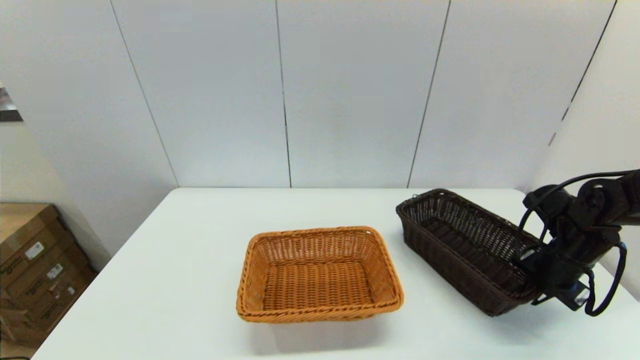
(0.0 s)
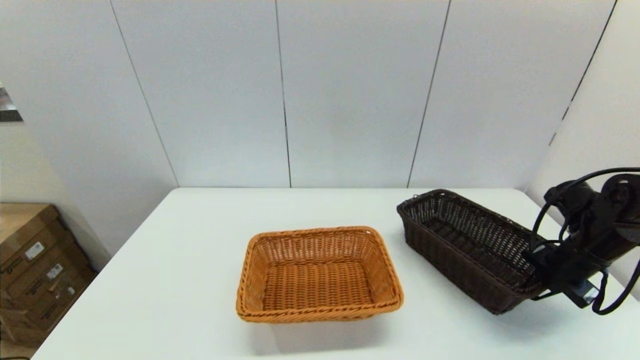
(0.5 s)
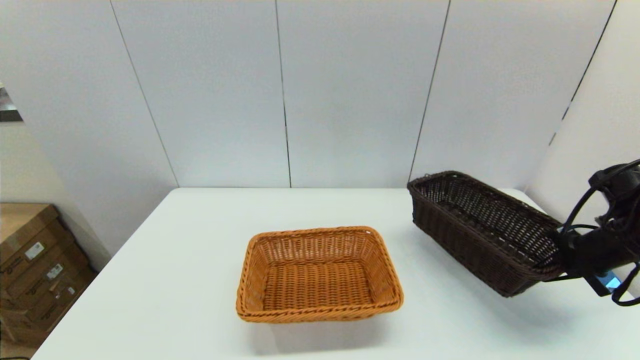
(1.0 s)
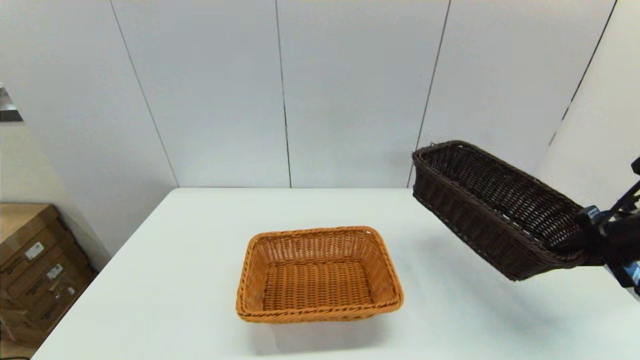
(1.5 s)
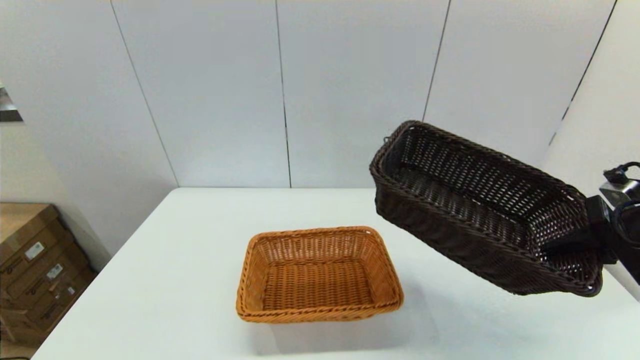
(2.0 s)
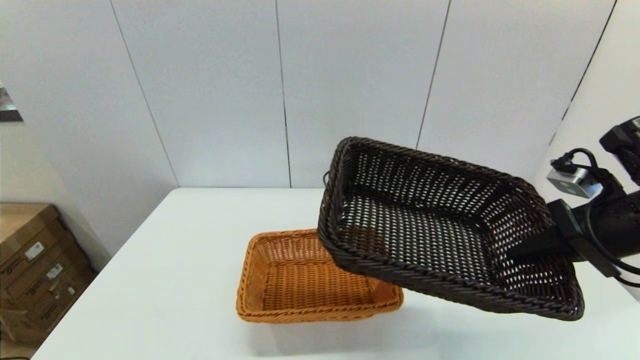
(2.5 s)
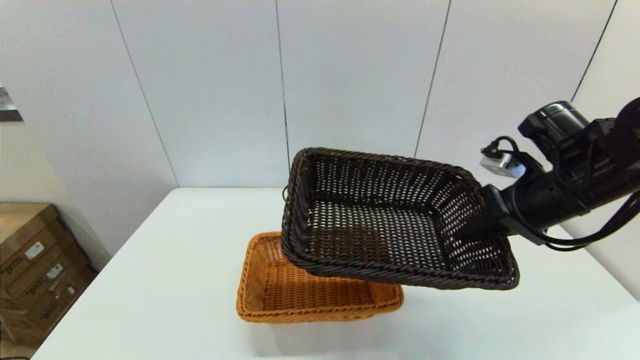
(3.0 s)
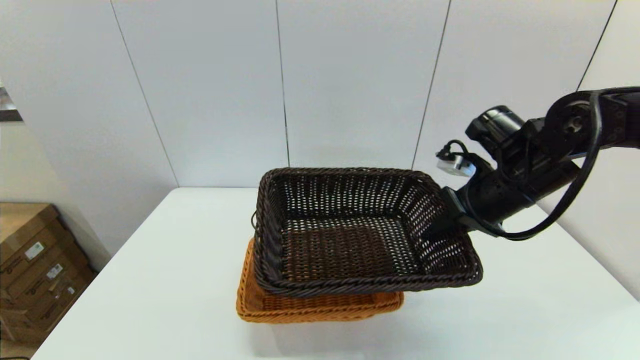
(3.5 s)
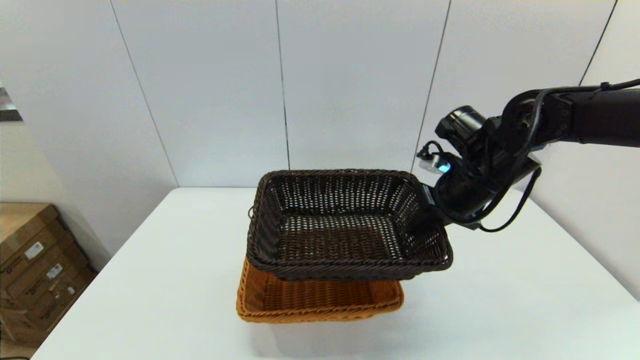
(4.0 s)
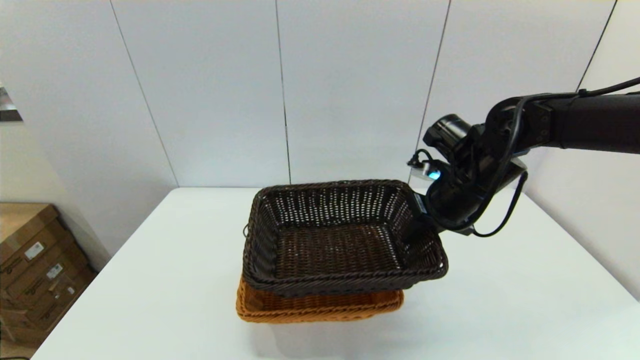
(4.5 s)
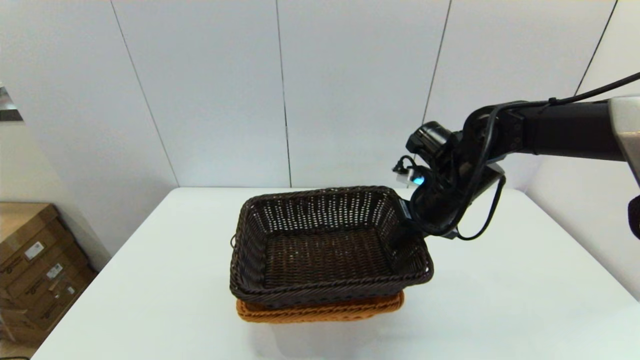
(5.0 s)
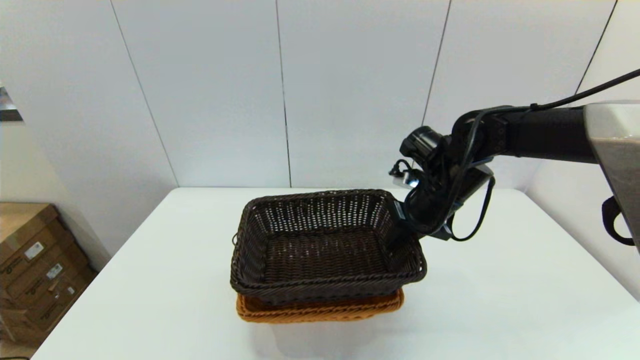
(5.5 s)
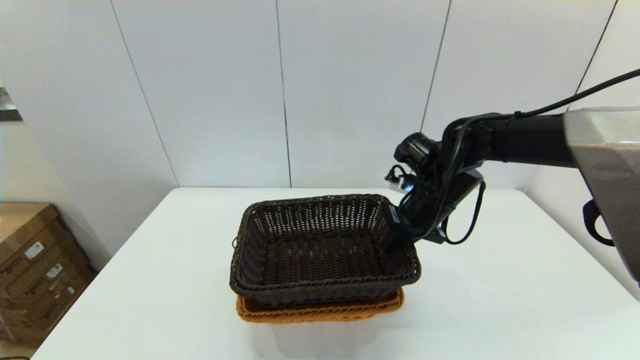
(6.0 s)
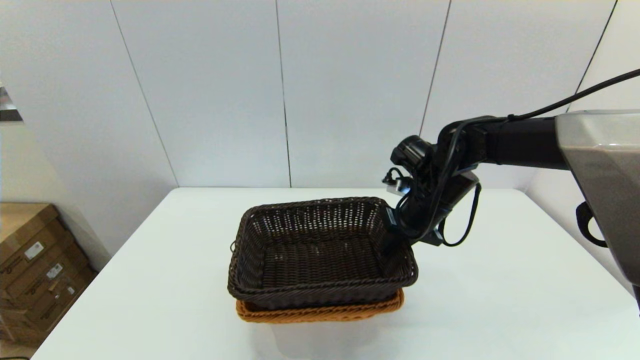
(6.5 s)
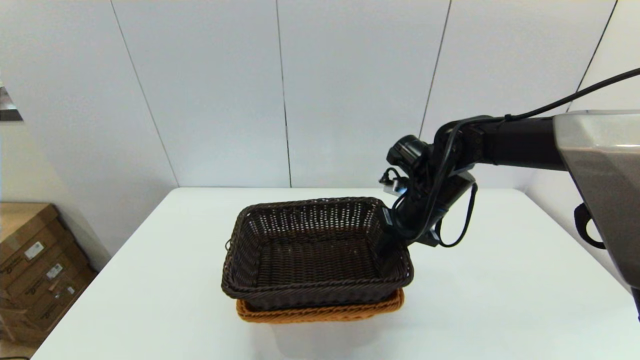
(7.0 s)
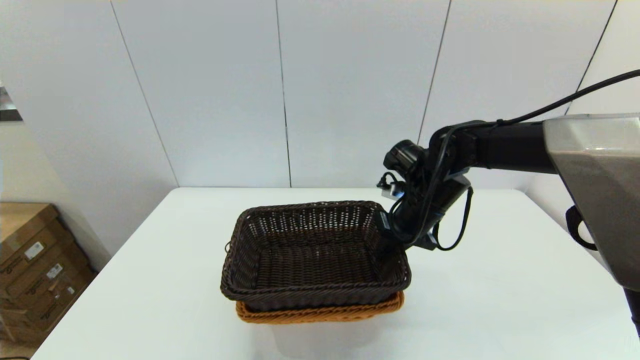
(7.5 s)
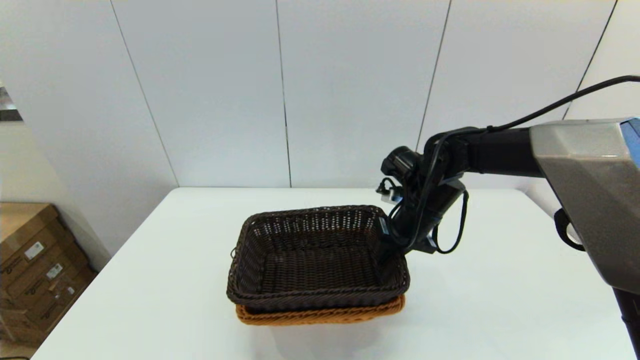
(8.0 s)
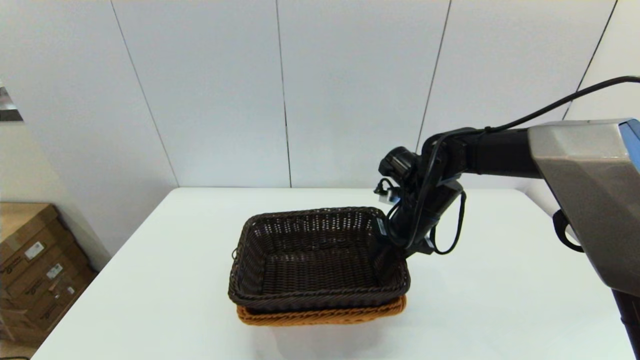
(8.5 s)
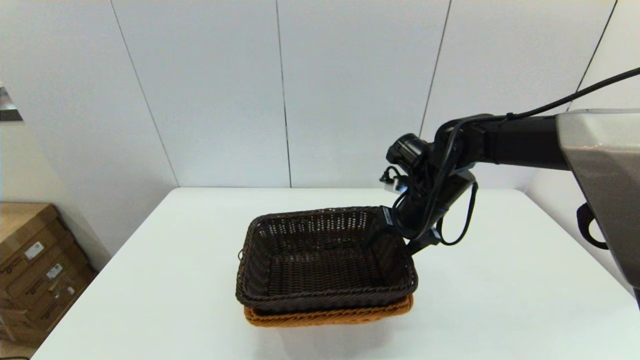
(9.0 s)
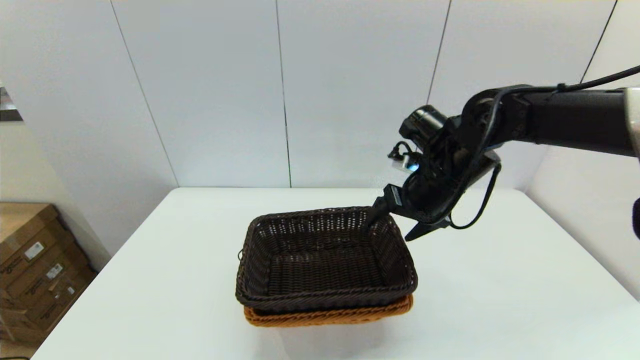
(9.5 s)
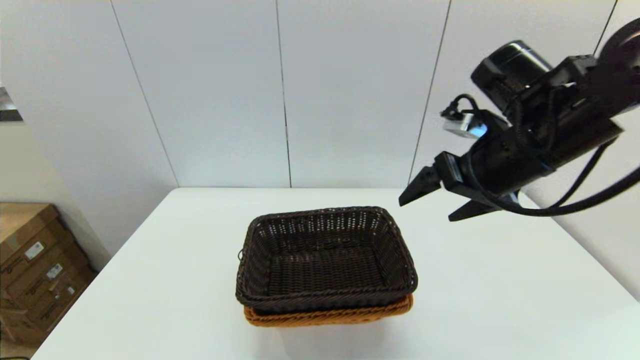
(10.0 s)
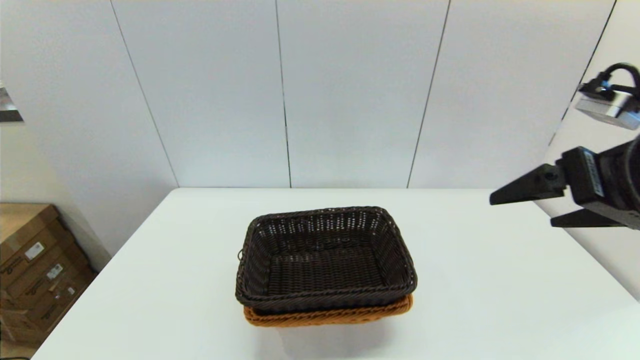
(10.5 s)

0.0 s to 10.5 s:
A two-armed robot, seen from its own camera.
Task of the whole recording: stack a basket on top of another basket.
Step, 0.5 to 9.0 s: Place the dark basket into the light color basket with the right gripper.
0.0 to 2.0 s: The right gripper goes about 15 cm upward and backward.
2.0 to 4.0 s: The right gripper is displaced to the left and forward by some 20 cm.
4.0 to 6.5 s: The right gripper shifts by some 5 cm.
6.5 to 8.5 s: The right gripper opens up.
8.5 to 10.5 s: The right gripper moves backward, upward and to the right, roughly 30 cm, and opens its fingers.

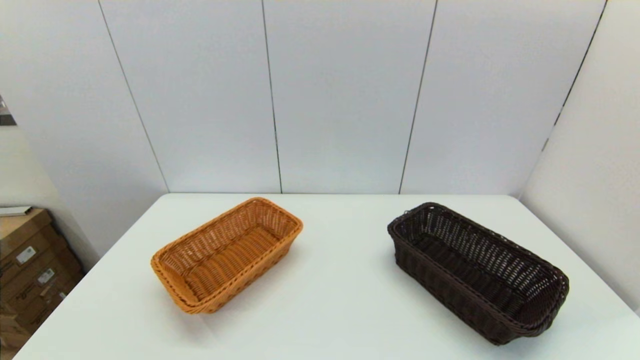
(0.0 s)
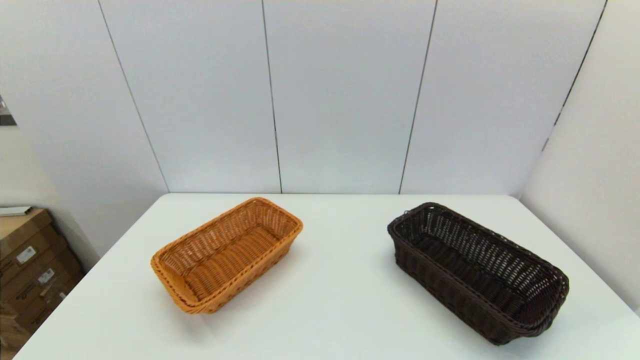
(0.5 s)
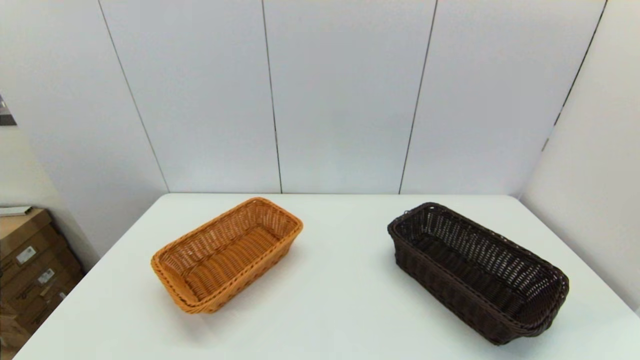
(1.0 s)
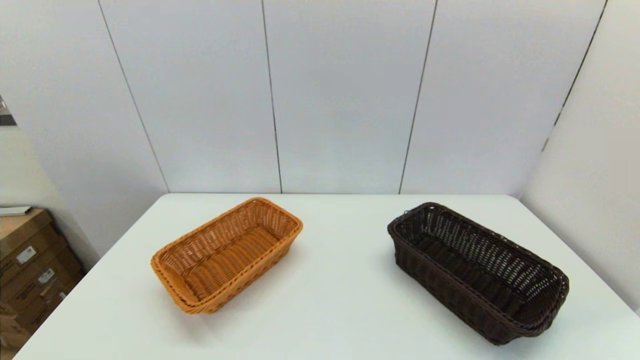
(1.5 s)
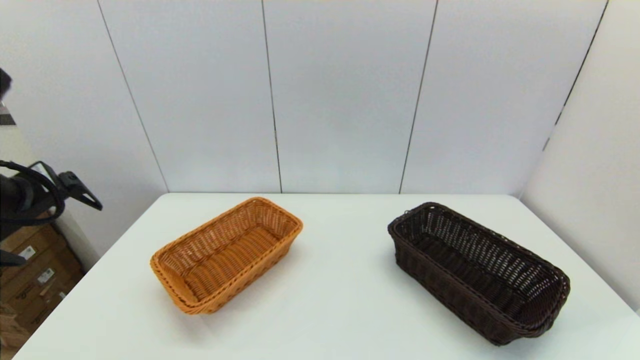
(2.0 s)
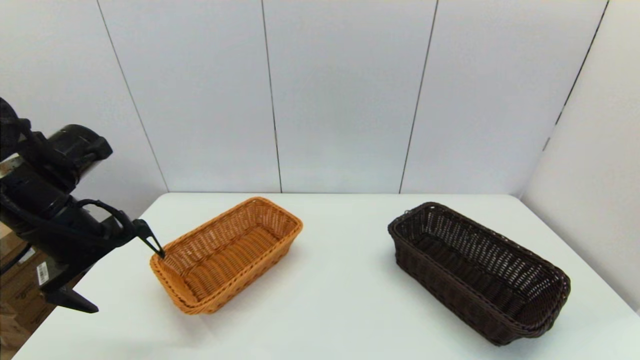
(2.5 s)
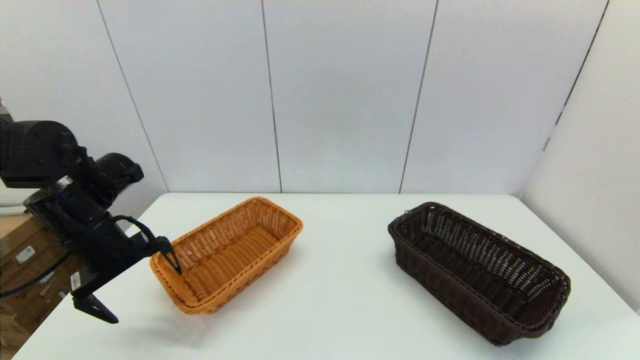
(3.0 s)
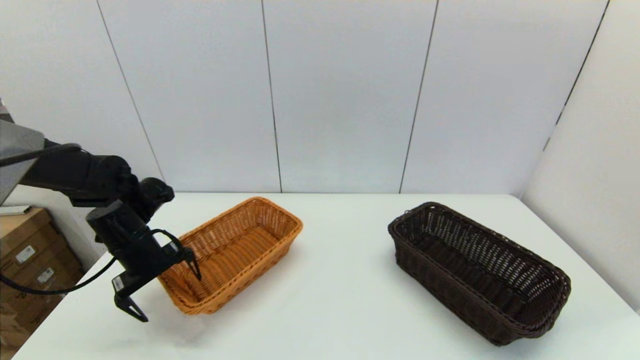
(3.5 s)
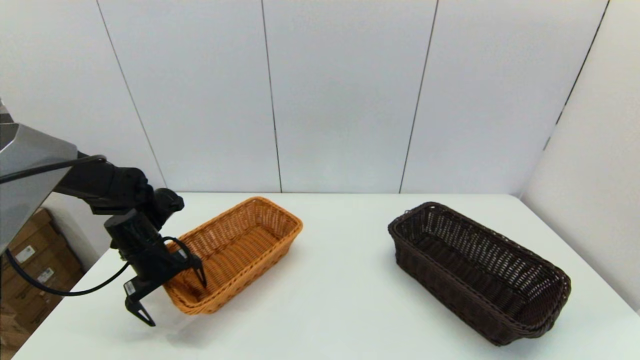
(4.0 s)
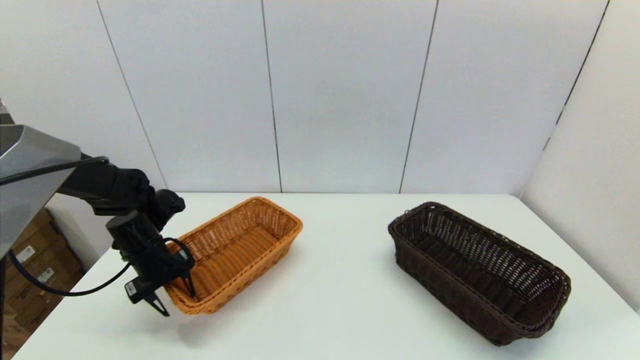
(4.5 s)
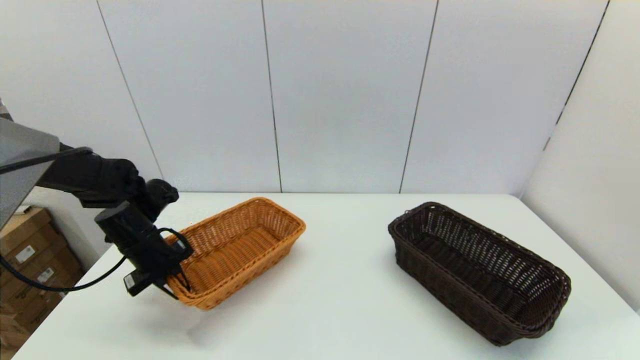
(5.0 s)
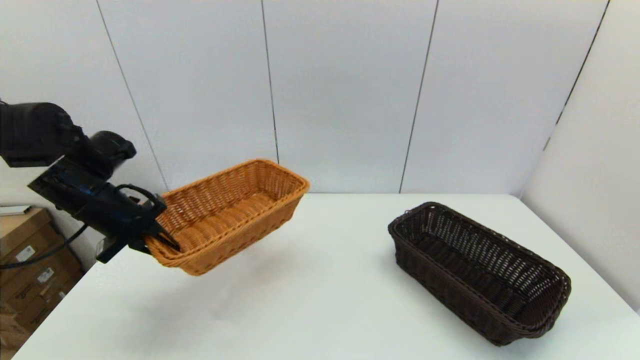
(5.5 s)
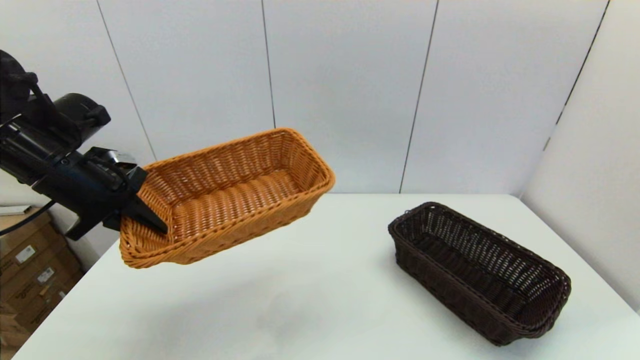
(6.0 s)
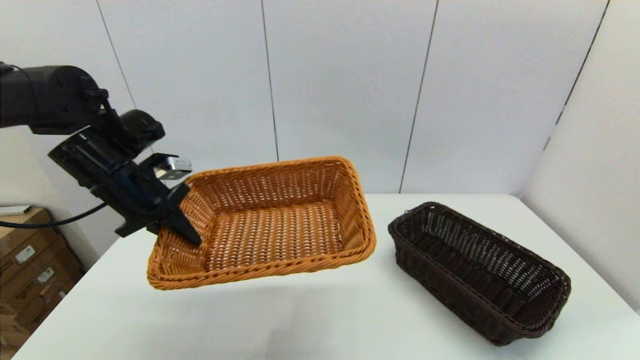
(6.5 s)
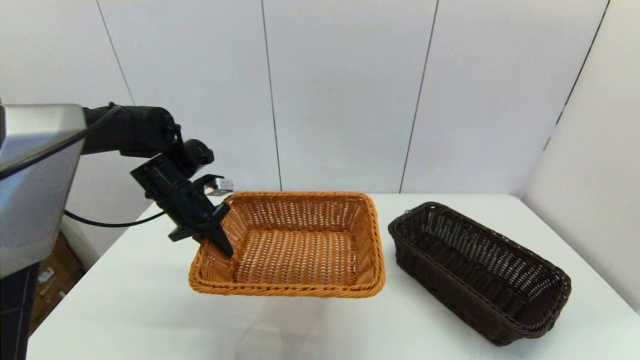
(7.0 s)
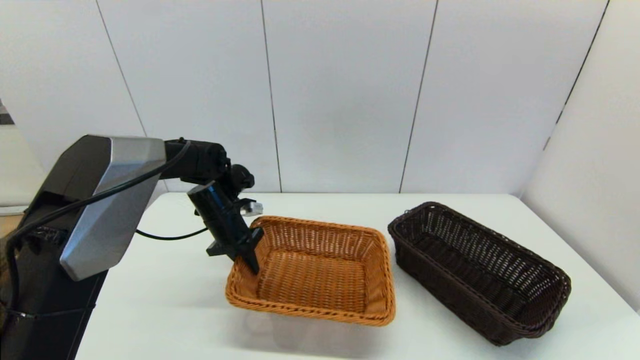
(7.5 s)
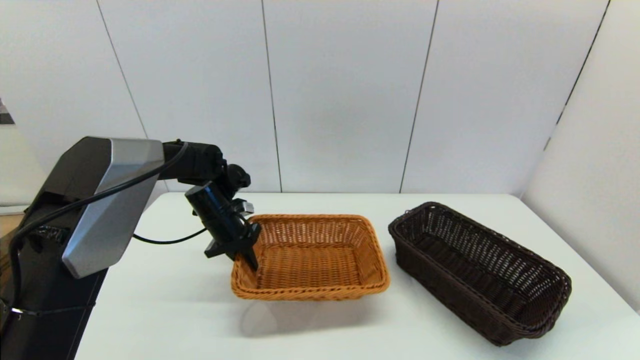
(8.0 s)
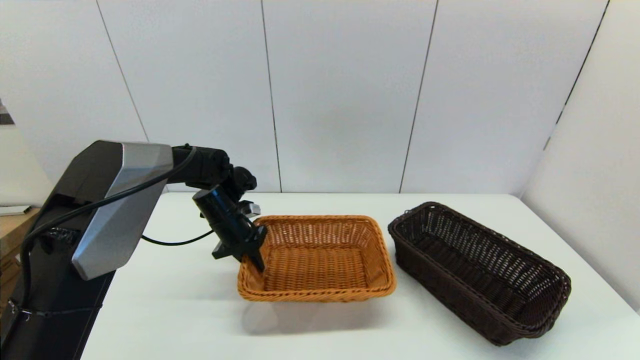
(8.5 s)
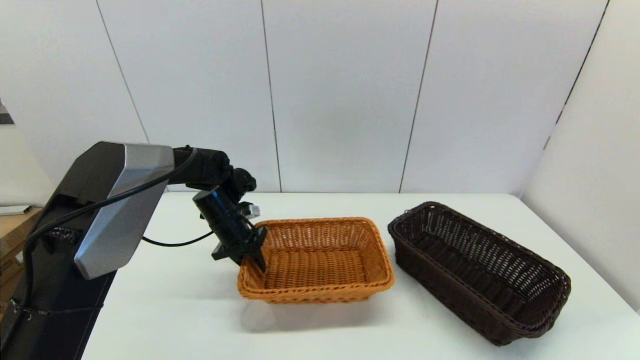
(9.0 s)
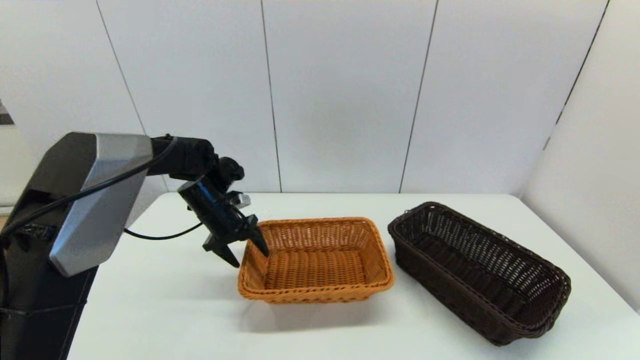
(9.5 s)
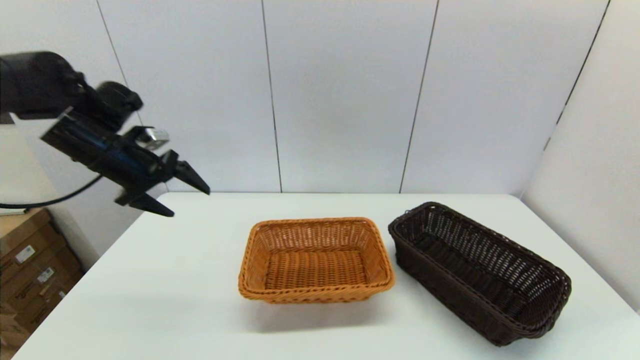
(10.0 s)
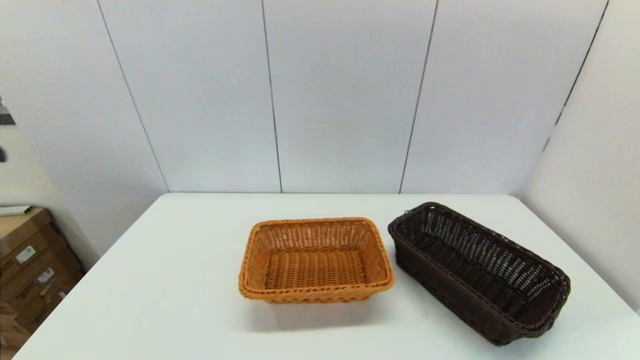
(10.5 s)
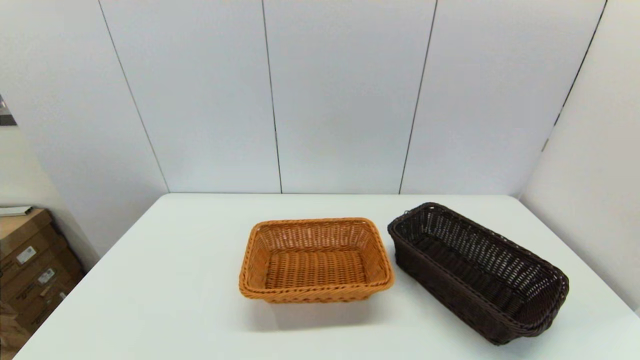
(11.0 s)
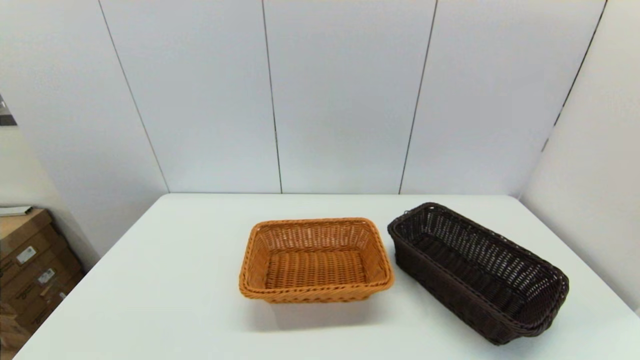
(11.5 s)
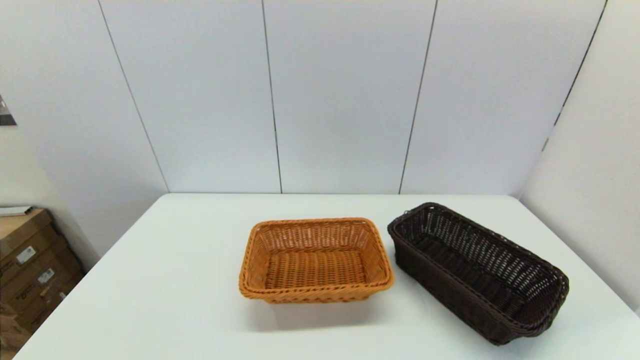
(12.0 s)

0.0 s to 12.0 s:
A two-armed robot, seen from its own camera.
Task of the whole recording: stack a basket on top of another basket.
Step, 2.0 to 4.5 s: Grasp the light basket with the left gripper.
Step, 5.0 to 9.0 s: Place the light basket on the middle of the table with the left gripper.
0.0 to 2.0 s: The left gripper travels forward and upward by approximately 30 cm.
2.0 to 4.0 s: The left gripper heads downward and forward, covering approximately 25 cm.
4.0 to 6.0 s: The left gripper heads upward, covering about 20 cm, and closes its fingers.
6.0 to 8.0 s: The left gripper shifts roughly 25 cm downward, to the right and forward.
8.0 to 10.0 s: The left gripper travels upward and to the left by approximately 20 cm, and opens.
10.0 to 12.0 s: The left gripper shifts some 40 cm backward and downward.
